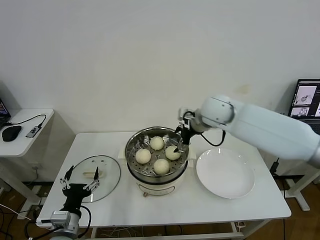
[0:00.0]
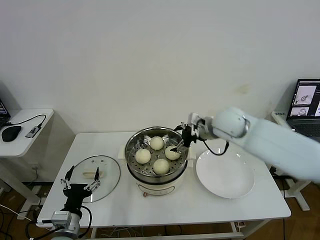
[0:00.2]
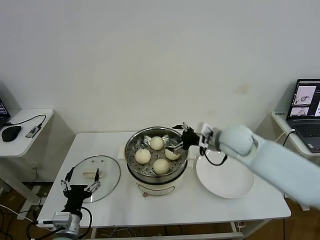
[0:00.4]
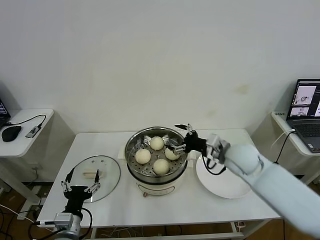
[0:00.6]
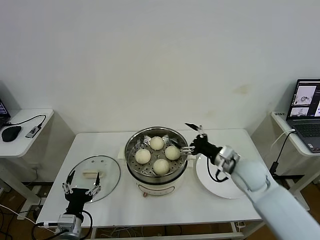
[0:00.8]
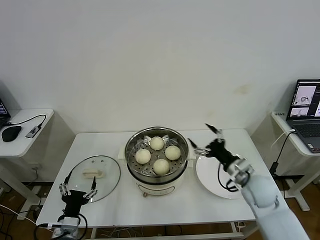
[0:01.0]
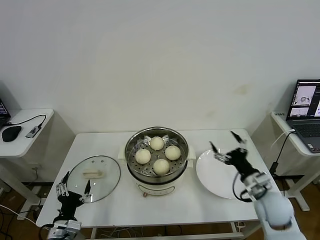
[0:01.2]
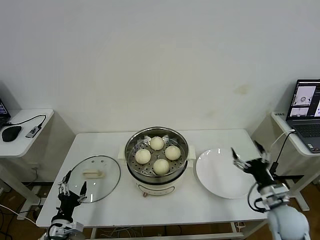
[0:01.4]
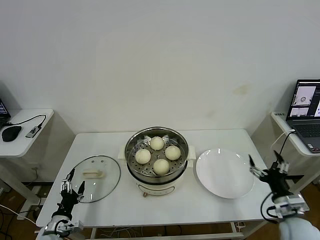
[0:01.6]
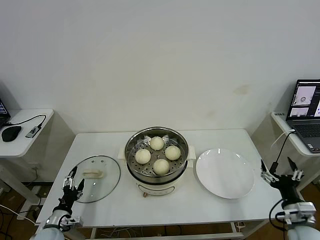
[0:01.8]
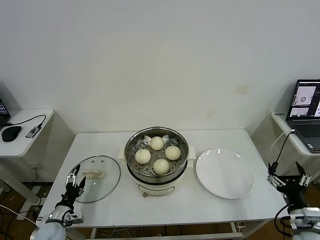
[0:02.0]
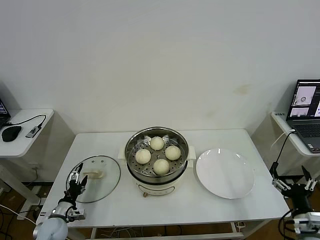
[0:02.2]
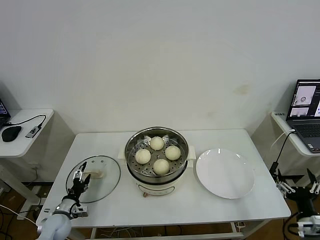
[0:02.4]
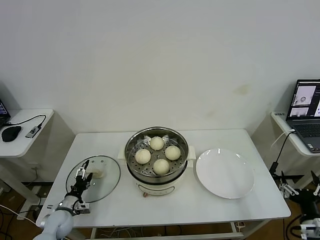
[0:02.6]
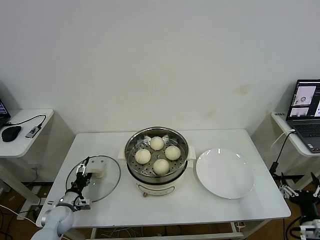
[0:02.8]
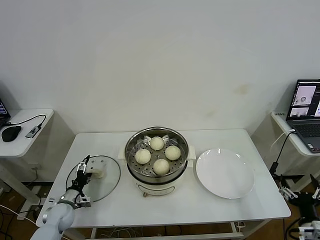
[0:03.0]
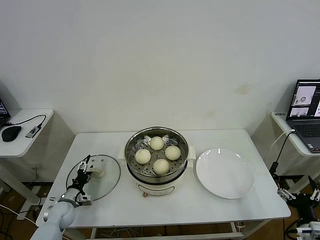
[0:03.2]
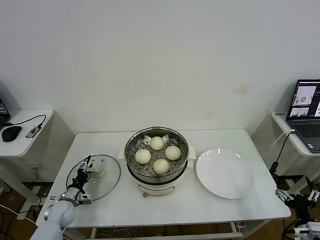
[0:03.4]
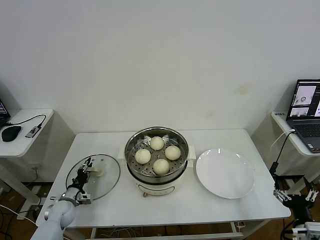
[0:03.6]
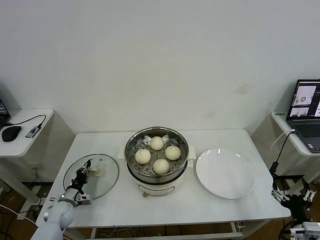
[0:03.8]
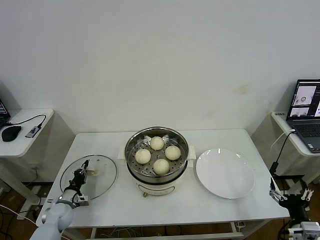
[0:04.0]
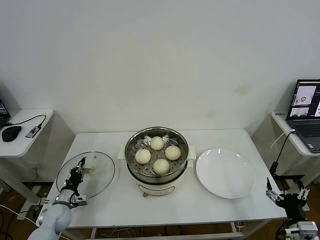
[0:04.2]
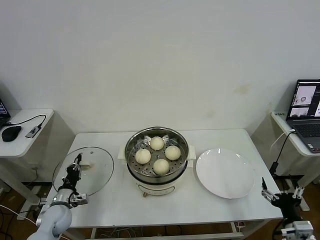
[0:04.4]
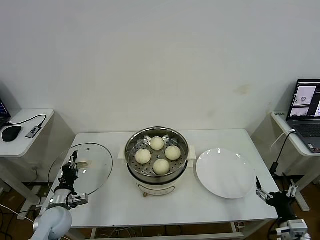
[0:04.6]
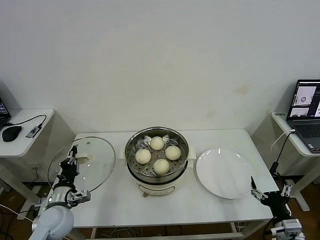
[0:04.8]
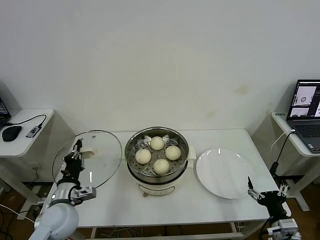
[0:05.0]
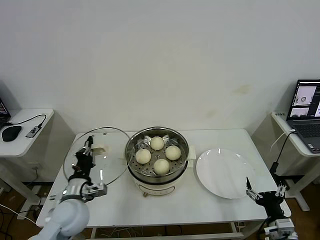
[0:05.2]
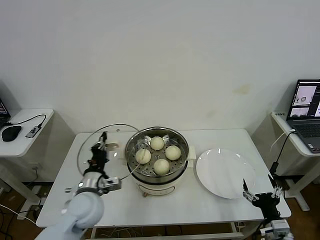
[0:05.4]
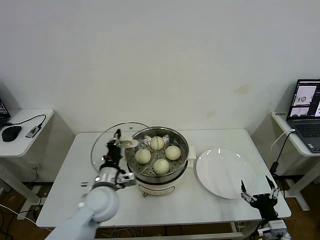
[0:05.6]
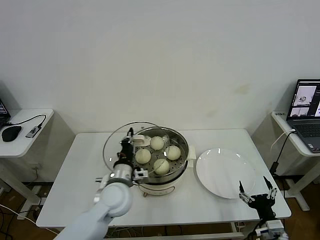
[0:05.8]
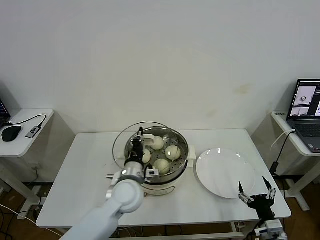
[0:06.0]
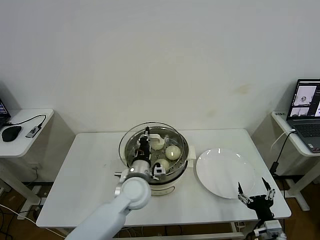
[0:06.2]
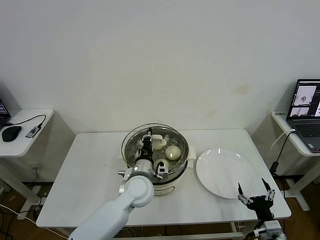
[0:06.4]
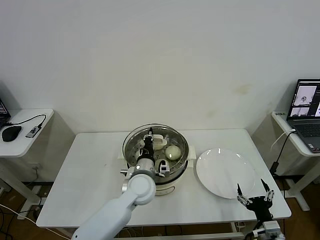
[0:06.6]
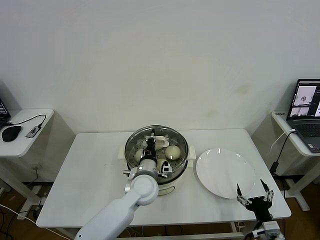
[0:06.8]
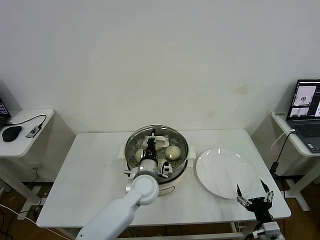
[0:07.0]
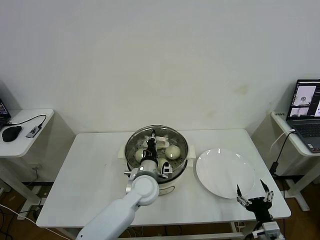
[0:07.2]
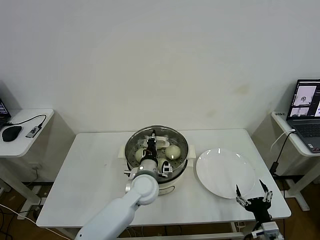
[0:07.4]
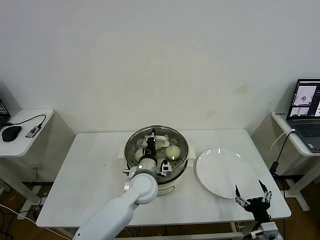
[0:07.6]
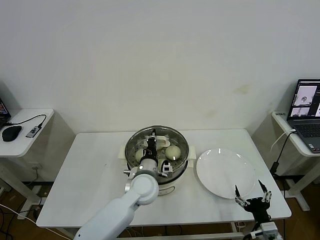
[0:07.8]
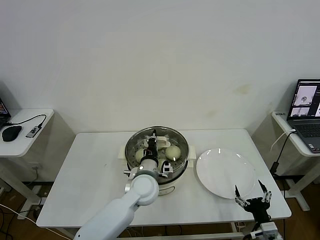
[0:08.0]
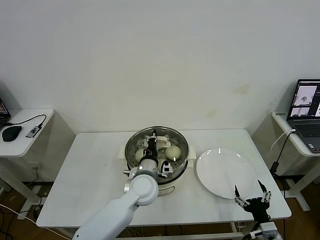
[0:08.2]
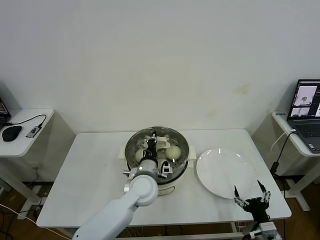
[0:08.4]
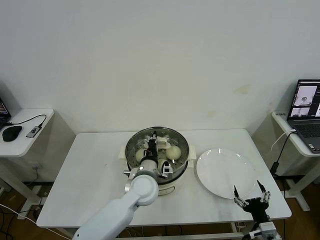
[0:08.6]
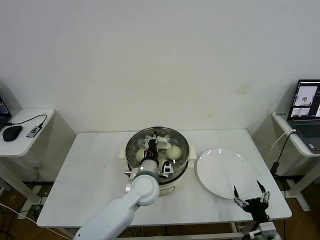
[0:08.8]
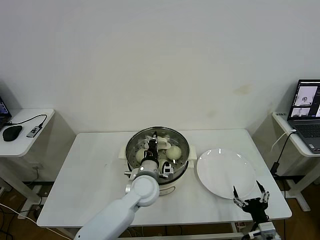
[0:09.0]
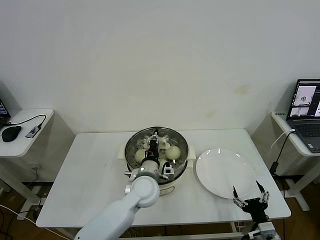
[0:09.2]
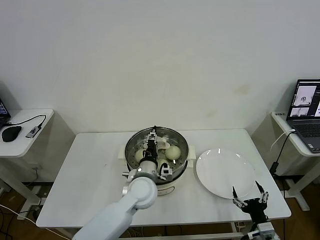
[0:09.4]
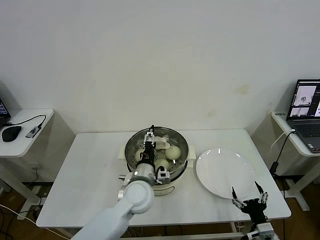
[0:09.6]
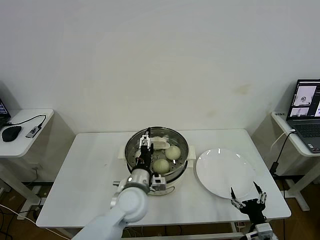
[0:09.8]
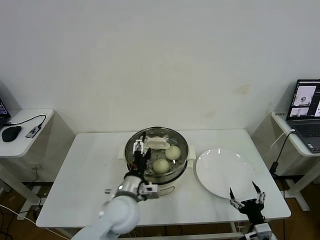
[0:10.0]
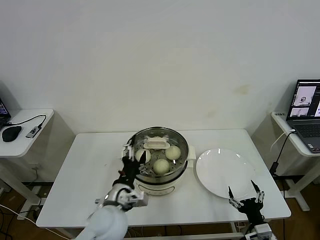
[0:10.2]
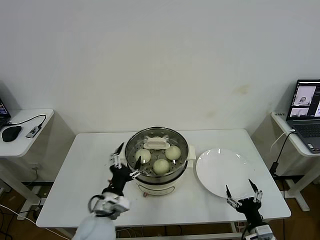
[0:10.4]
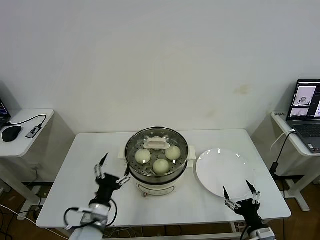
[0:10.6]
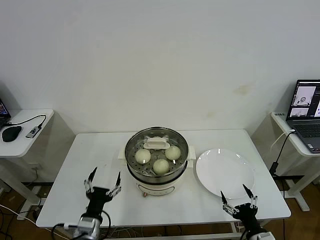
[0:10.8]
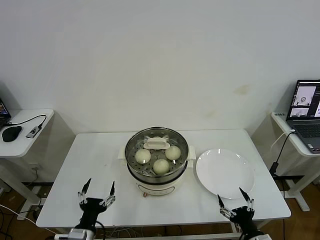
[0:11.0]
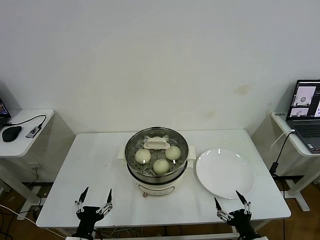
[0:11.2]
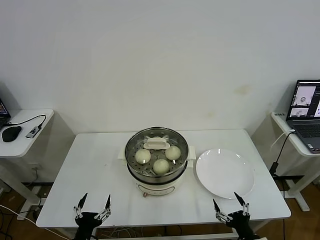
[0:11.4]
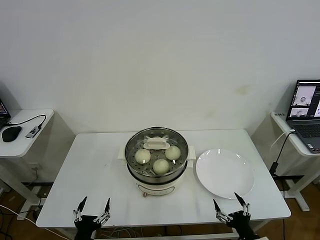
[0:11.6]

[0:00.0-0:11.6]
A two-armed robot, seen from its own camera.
Task of the whole recording: take steamed baozi put them in steamer then cover it.
Step, 0:00.0 to 0:04.0: Grasp the pot lid with left gripper.
Step, 0:04.2 to 0:10.0: Place the pot lid on the steamer with left gripper.
0:00.0 to 0:01.4: The right gripper goes about 40 cm backward, downward and to the right. The left gripper moves downward and to the left, some 10 cm.
0:01.4 to 0:02.8: The right gripper heads backward and to the right, covering about 10 cm; the left gripper shifts some 15 cm forward, downward and to the left.
0:02.8 to 0:04.4: The left gripper closes up.
0:04.4 to 0:05.8: The left gripper heads to the right and upward, covering some 30 cm, while the right gripper is displaced to the left by roughly 5 cm.
0:05.8 to 0:07.2: The left gripper shifts about 10 cm to the right.
0:07.2 to 0:08.8: The grippers move only a little.
0:08.8 to 0:10.2: The left gripper is displaced backward and to the left by about 15 cm, and opens.
0:10.2 to 0:11.6: The left gripper heads backward, to the left and downward, covering about 25 cm.

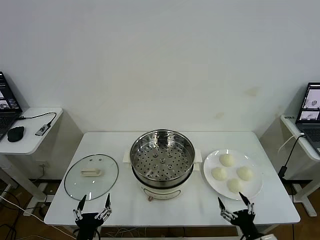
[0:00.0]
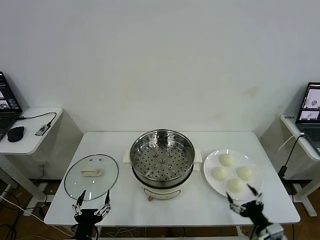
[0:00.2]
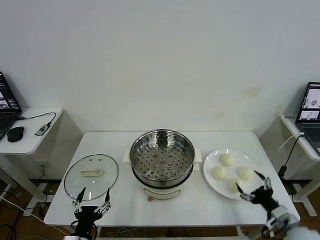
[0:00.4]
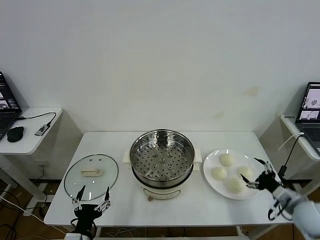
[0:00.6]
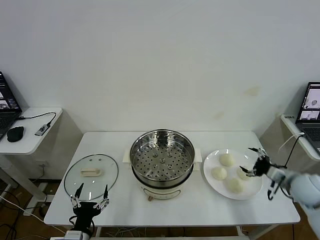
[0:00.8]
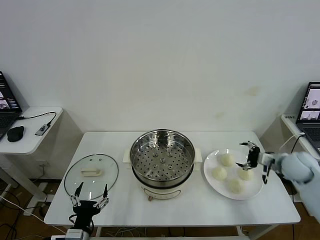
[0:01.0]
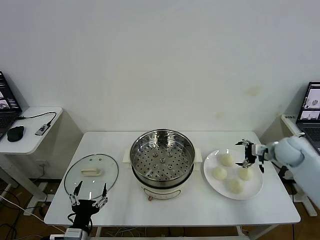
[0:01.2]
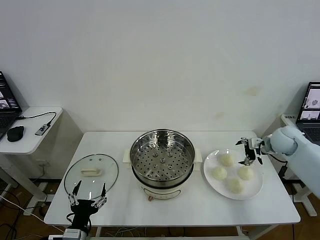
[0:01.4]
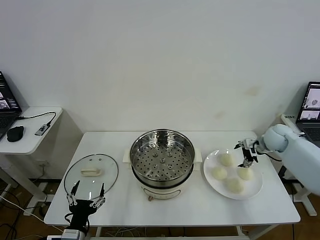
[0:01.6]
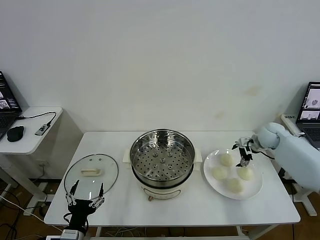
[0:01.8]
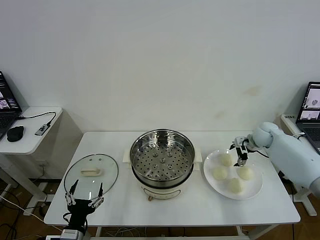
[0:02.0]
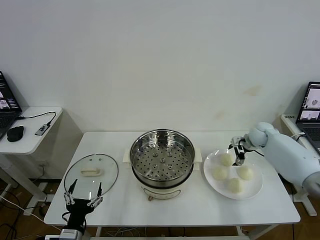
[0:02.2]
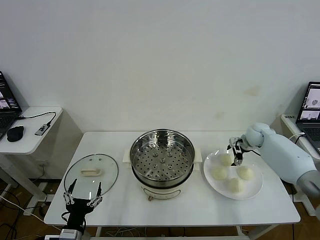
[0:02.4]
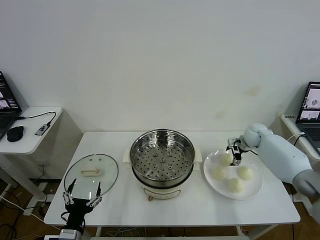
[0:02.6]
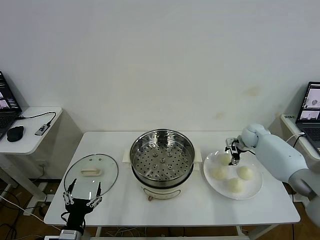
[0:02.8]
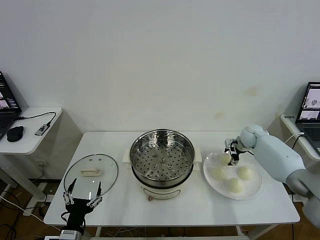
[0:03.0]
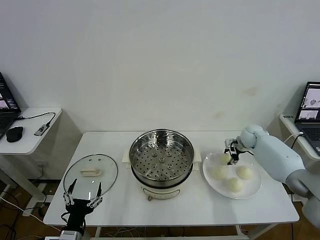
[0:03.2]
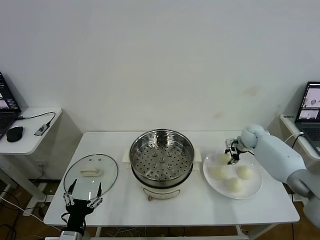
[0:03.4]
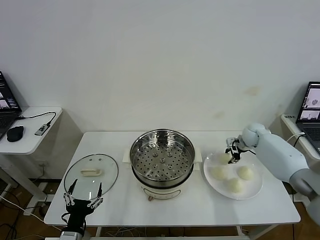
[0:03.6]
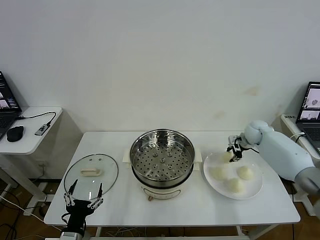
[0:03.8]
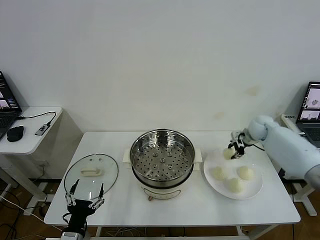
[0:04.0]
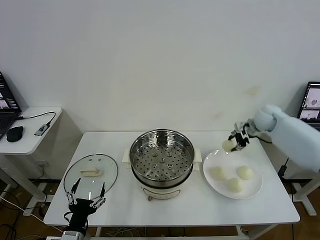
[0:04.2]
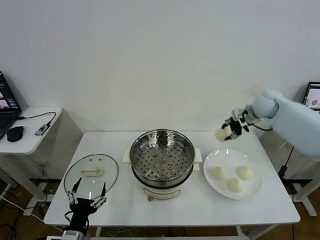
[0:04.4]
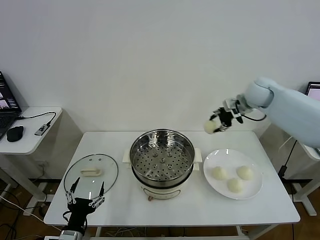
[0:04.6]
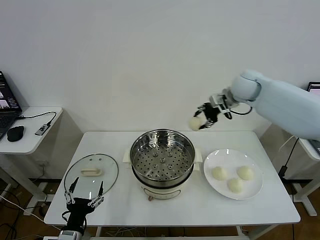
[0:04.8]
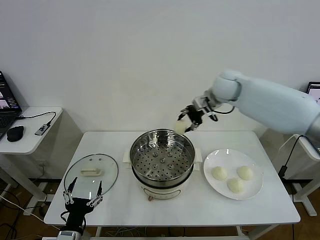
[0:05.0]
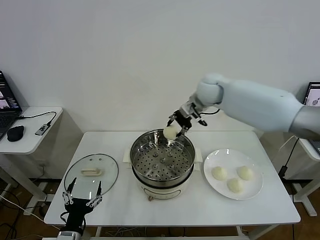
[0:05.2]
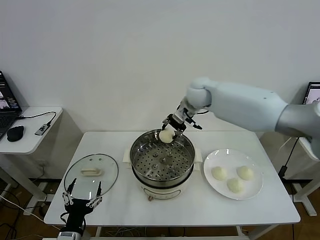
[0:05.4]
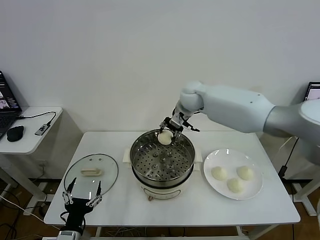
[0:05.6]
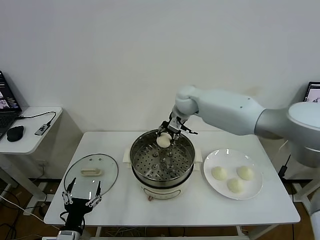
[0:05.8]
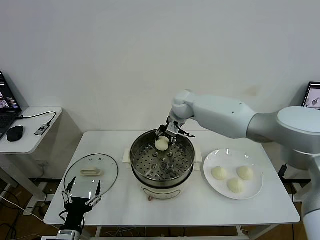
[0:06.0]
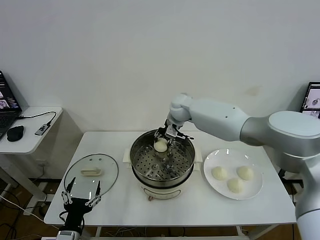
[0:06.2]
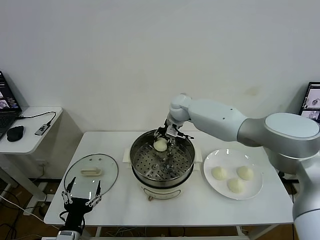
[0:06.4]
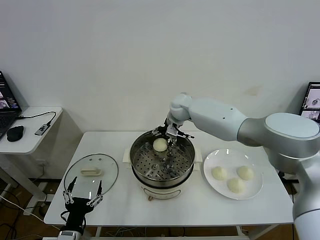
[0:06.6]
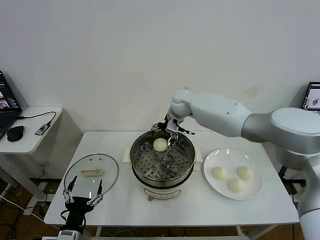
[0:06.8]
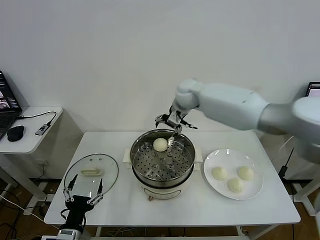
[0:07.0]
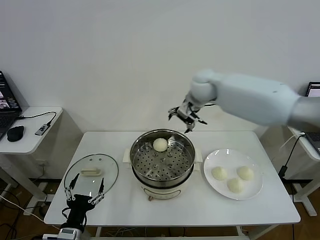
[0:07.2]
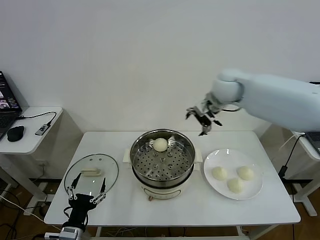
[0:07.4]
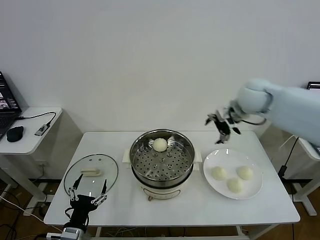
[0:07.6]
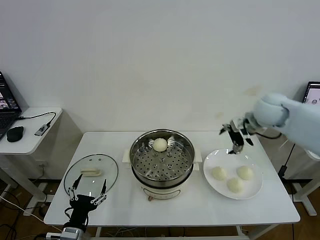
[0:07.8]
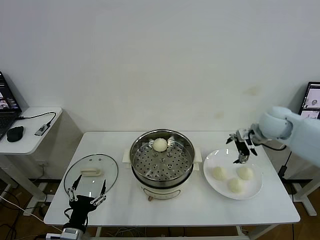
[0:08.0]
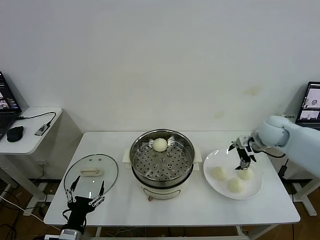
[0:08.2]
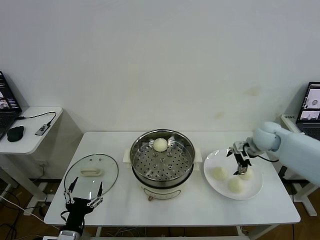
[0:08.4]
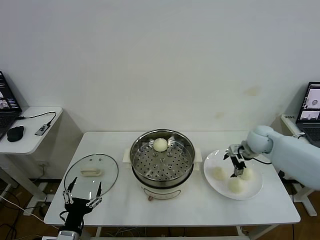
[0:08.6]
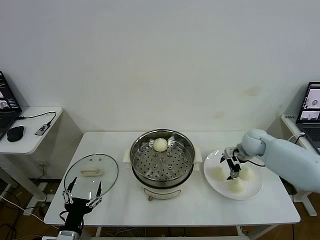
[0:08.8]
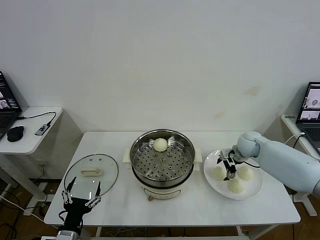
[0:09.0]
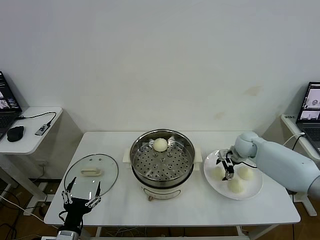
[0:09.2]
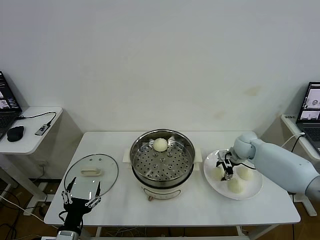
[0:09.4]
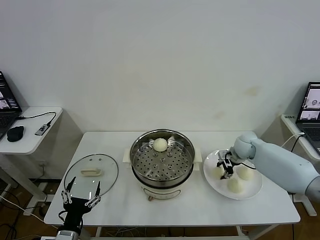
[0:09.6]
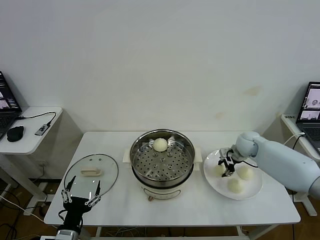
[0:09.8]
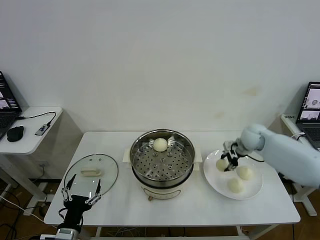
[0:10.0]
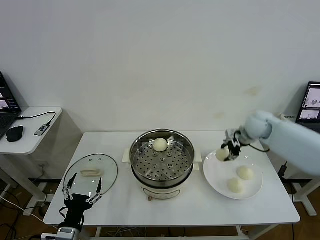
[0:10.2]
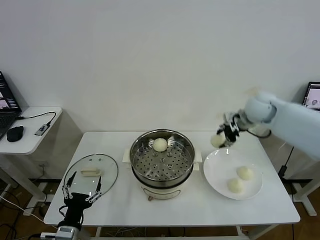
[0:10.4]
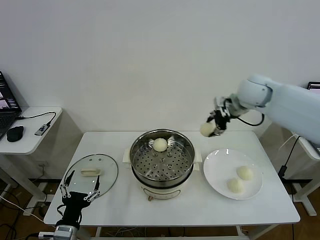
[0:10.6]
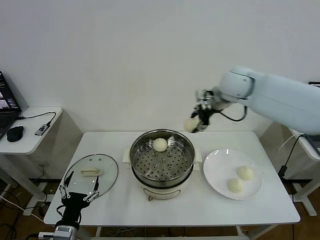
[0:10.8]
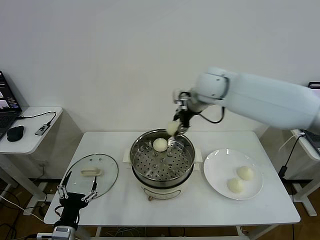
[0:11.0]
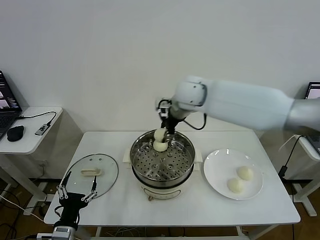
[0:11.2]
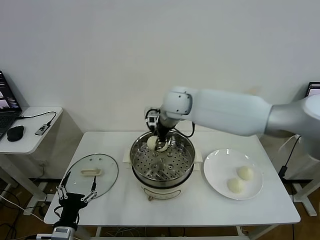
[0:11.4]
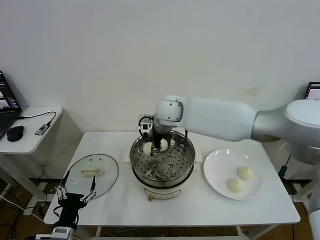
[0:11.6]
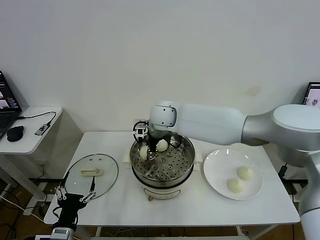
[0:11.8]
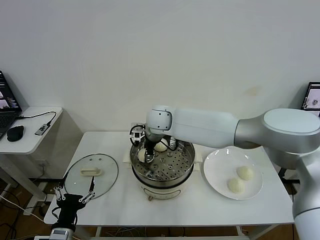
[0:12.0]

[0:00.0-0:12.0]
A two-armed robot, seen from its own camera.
Task of the whole recording: take steamed baozi put them in steamer then cover it.
Step, 0:00.0 to 0:03.4: Grasp the baozi in the plate with right gripper.
Step, 0:03.6 to 0:06.6: Place the baozi on the steamer with right gripper.
Step, 0:07.0 to 0:09.6: Grasp the baozi in the plate with right gripper.
0:01.6 to 0:03.0: The right gripper travels downward and forward by about 5 cm, and closes up.
0:03.0 to 0:04.4: The right gripper heads upward, covering some 20 cm, and closes its fingers.
0:04.4 to 0:06.0: The right gripper is displaced to the left by approximately 25 cm.
0:06.0 to 0:07.6: The right gripper shifts about 25 cm to the right and backward, and opens up.
0:07.6 to 0:09.0: The right gripper travels downward by about 20 cm.
0:09.0 to 0:10.4: The right gripper moves upward, approximately 20 cm, and closes up.
0:10.4 to 0:12.0: The right gripper heads to the left, covering some 30 cm.
